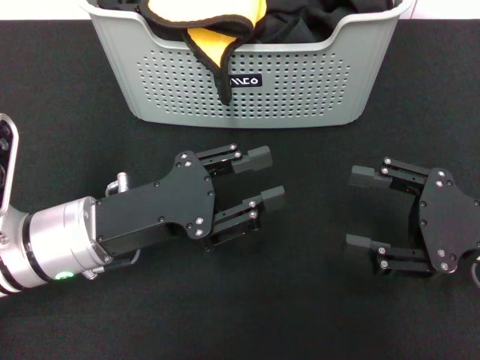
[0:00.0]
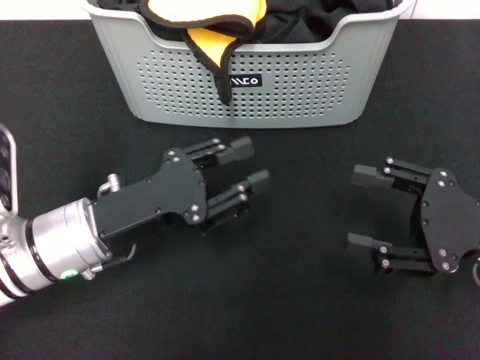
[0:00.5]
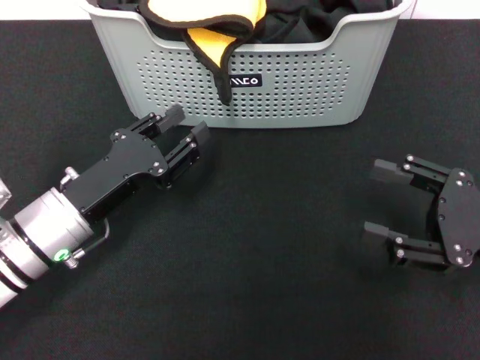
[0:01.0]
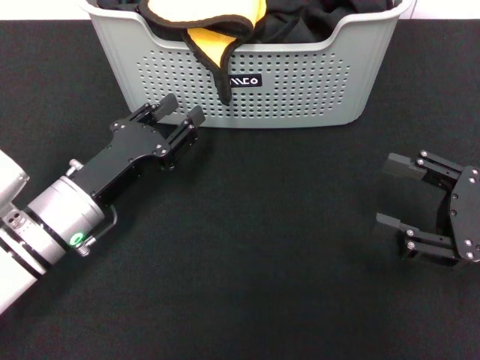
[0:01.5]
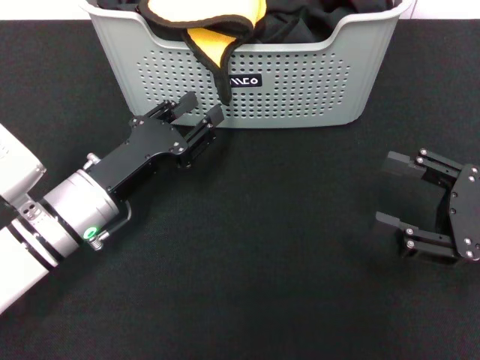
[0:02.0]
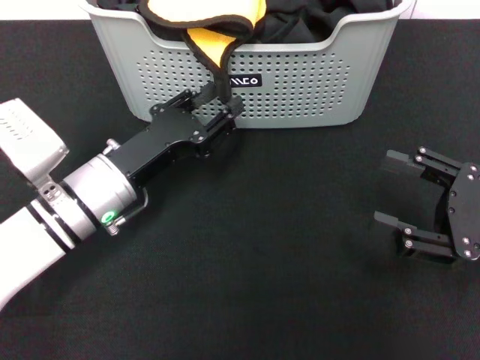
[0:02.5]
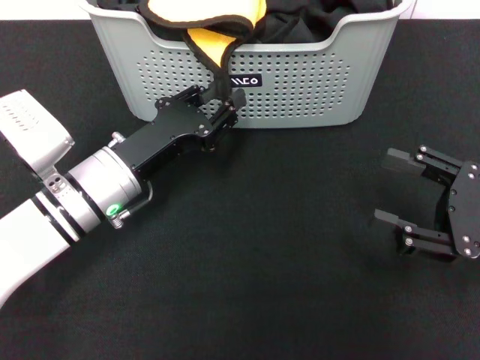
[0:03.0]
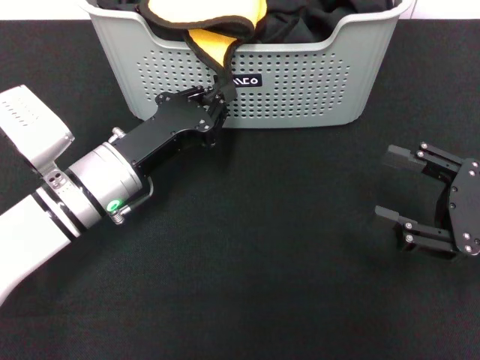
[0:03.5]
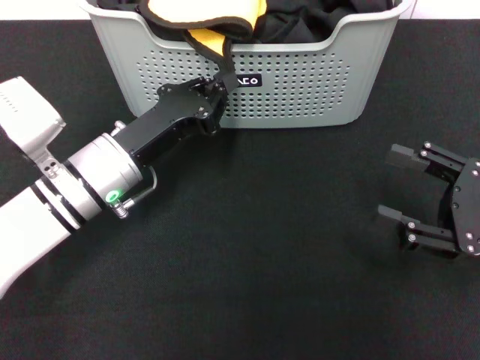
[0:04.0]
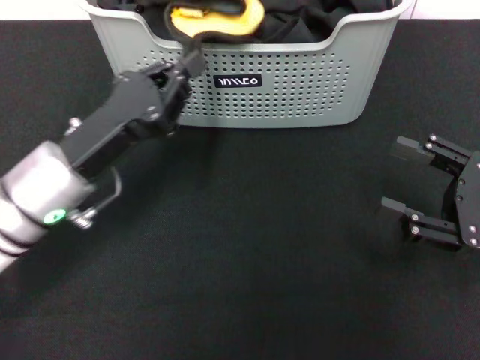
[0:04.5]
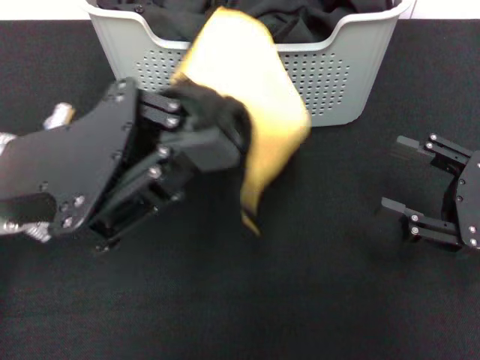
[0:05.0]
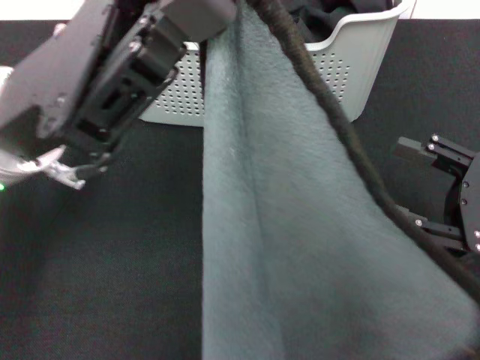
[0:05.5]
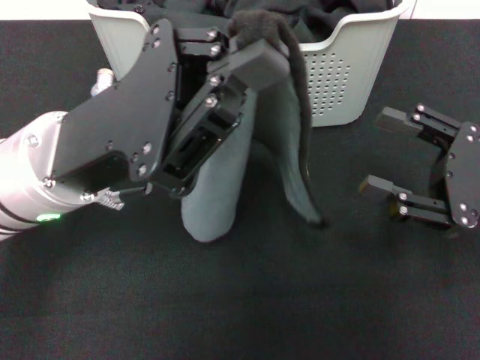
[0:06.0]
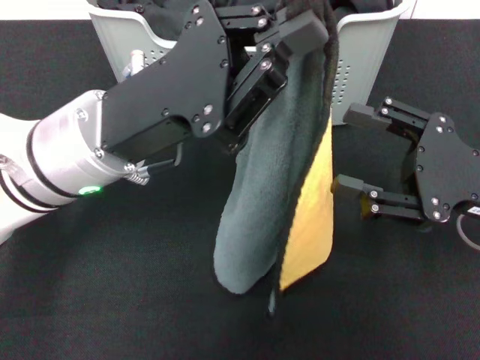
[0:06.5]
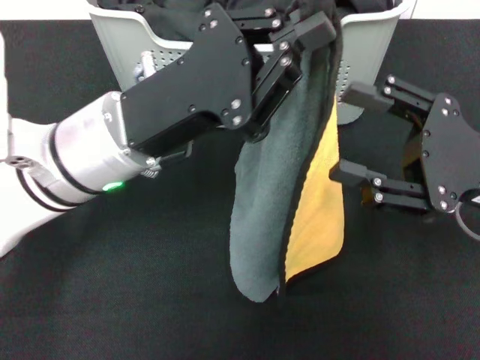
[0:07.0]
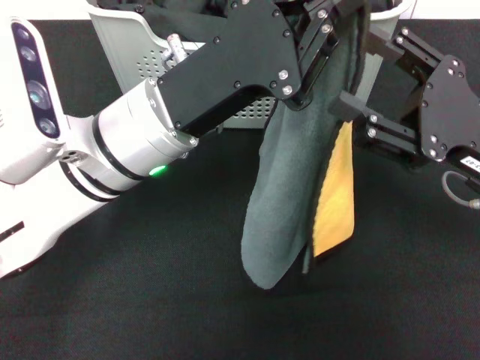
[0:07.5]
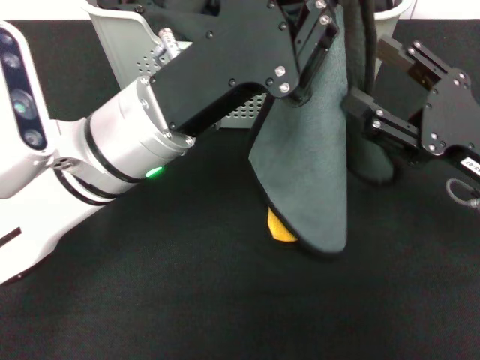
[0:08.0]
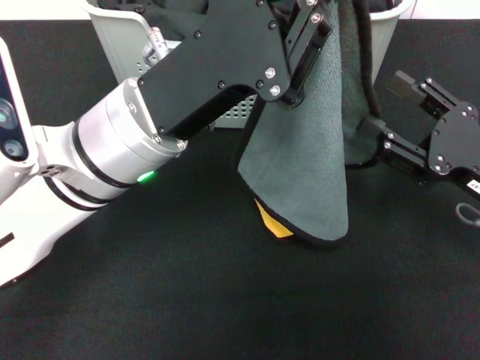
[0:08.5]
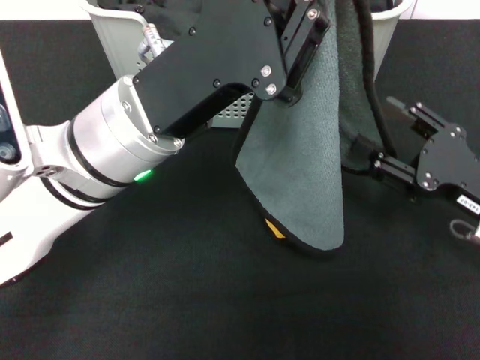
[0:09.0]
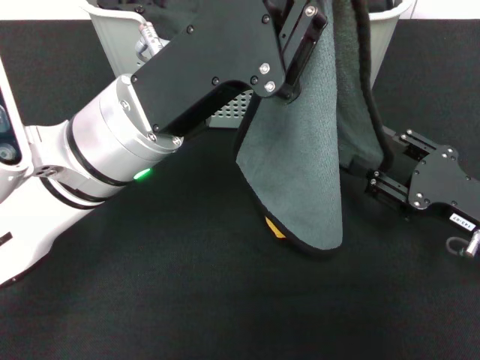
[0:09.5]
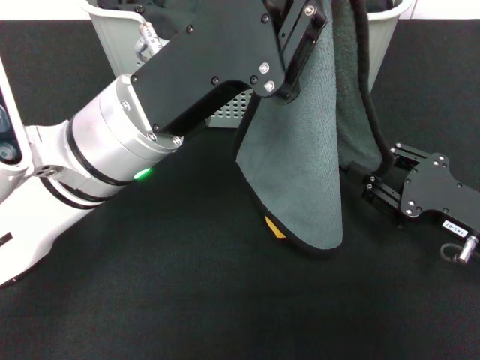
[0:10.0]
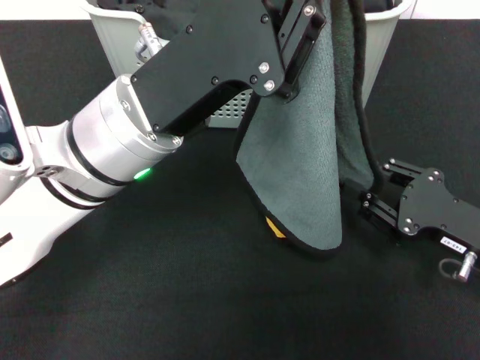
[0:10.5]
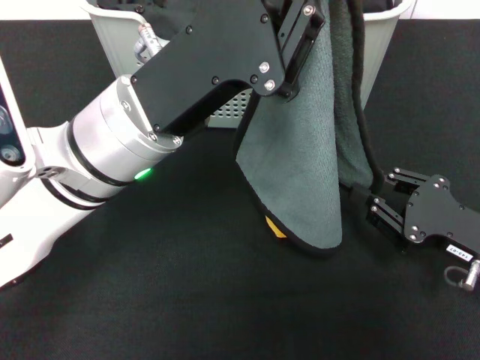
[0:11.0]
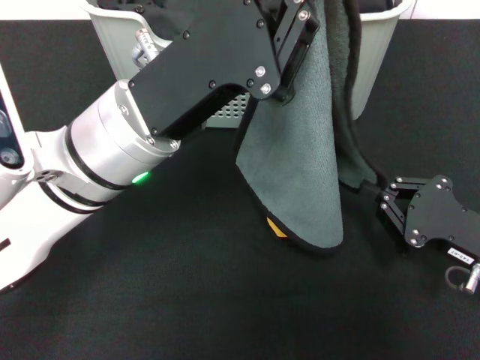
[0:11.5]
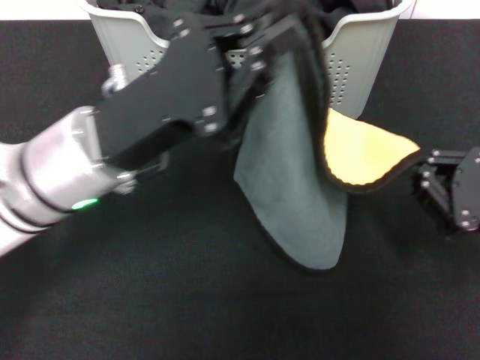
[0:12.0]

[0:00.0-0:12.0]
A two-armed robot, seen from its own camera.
Task of the whole recording: pick up the towel from the storage box and lay it flat on the black tablecloth.
Step, 0:00.0 to 0:04.0: Pick up a towel with the left gripper.
Step, 0:04.5 to 0:11.5: Spread the towel flat with the left gripper.
0:00.0 to 0:02.0: The left gripper moves some 5 cm.
0:02.0 to 0:04.0: The left gripper closes.
0:04.0 to 0:06.0: The left gripper moves upward, approximately 10 cm.
0:06.0 to 0:08.0: The left gripper ends up roughly 5 cm from where it was.
0:08.0 to 0:10.0: The right gripper is displaced downward by approximately 5 cm.
0:10.0 to 0:12.0: The right gripper closes up.

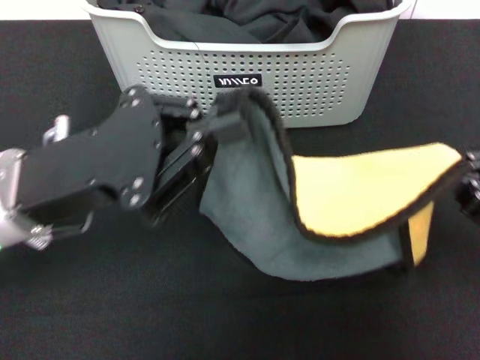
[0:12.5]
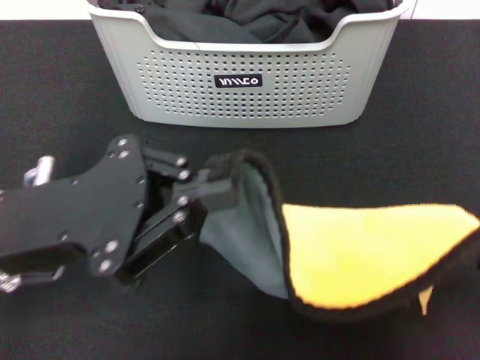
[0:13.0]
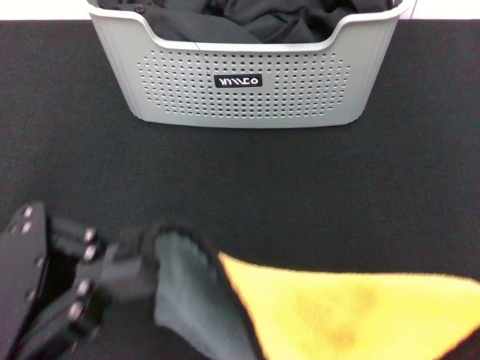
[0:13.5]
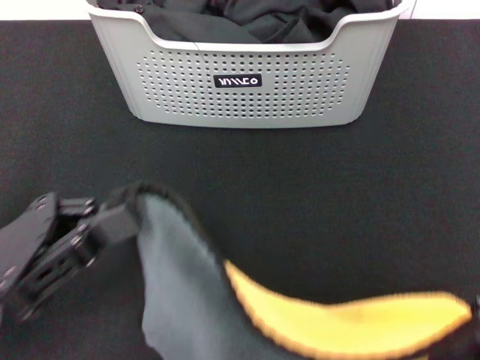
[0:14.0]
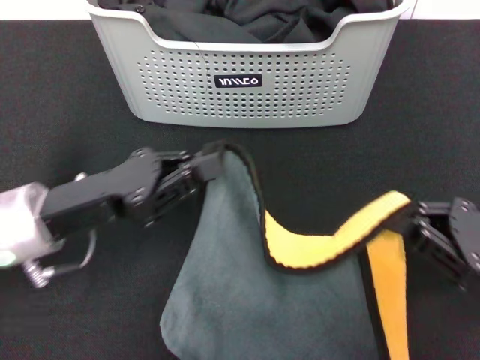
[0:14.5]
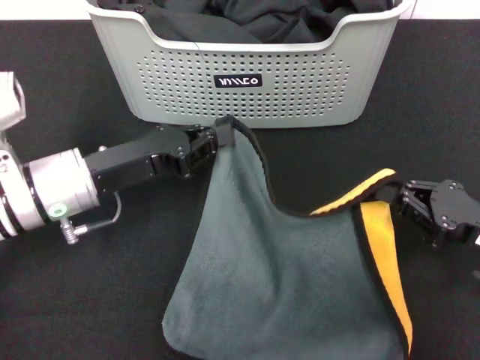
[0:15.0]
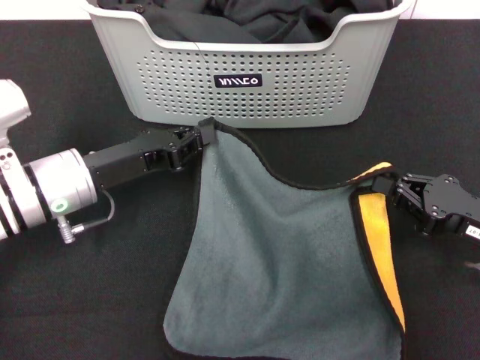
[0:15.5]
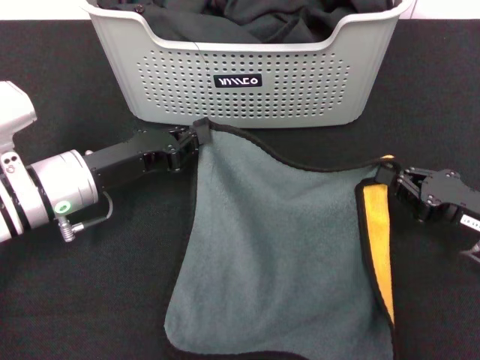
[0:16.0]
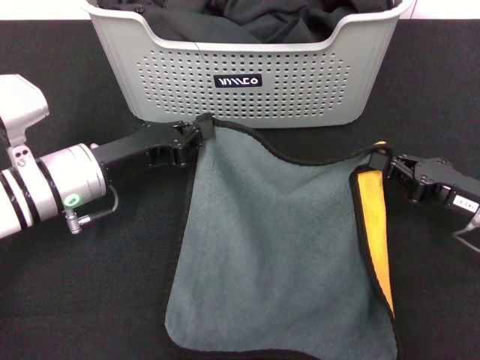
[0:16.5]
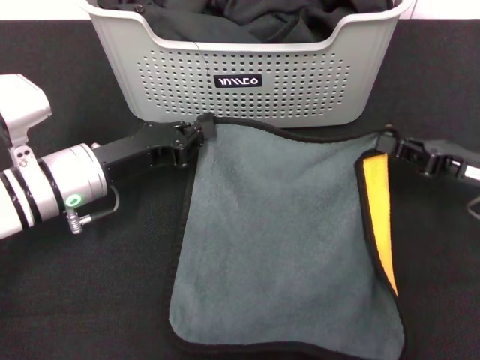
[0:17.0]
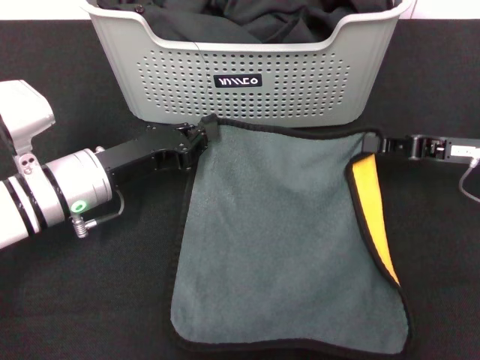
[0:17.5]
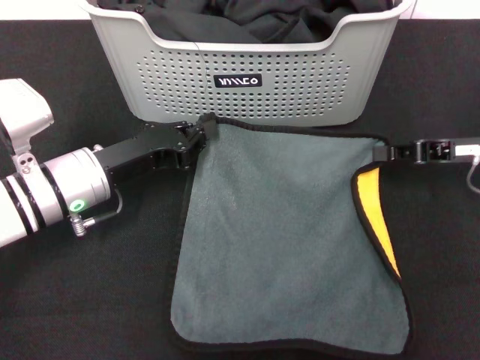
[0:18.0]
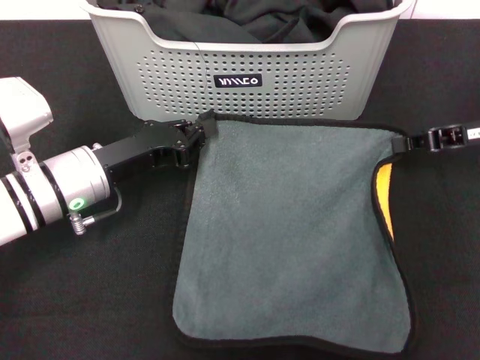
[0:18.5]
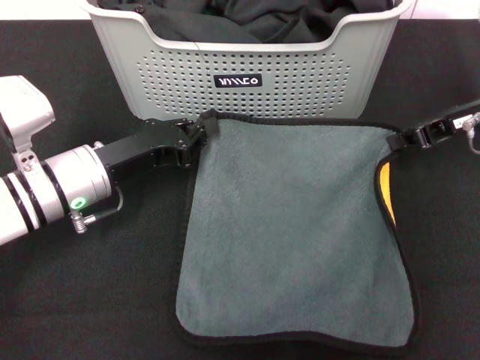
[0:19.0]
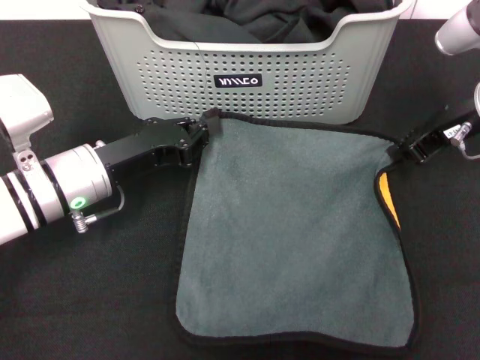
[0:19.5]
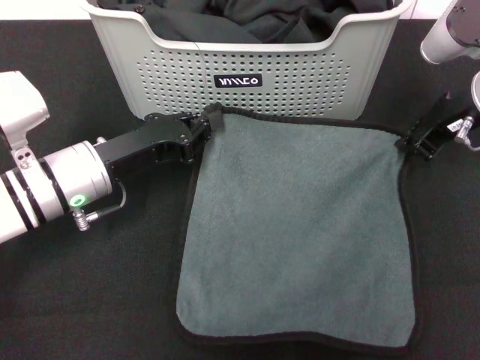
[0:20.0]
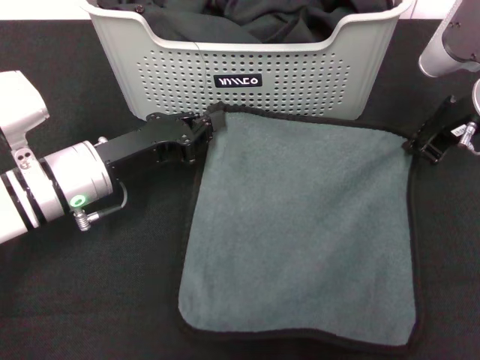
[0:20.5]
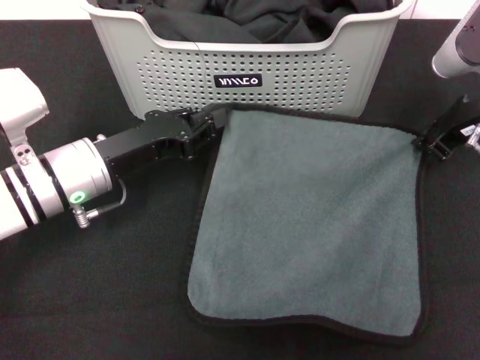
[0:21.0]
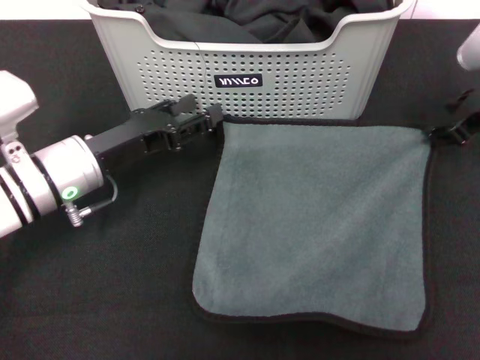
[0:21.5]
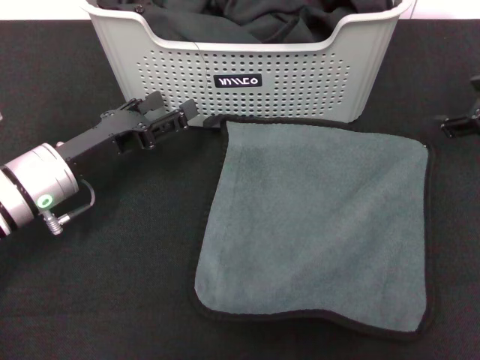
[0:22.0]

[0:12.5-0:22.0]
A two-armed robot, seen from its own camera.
Task of the whole recording: pick up the towel from the storage box and lay it flat on the black tablecloth.
Step, 0:12.5 to 0:21.0: Spread the towel flat with the right gripper.
0:12.5 to 0:14.5: Both grippers move downward, some 5 cm. The left gripper reaches roughly 10 cm backward, then returns, while the right gripper travels backward and back again, some 10 cm each way.
0:14.5 to 0:16.5: The two grippers go approximately 5 cm forward.
0:16.5 to 0:18.0: The right gripper moves forward and upward, approximately 10 cm.
0:18.0 to 0:20.0: The right gripper moves upward and to the left, approximately 10 cm.
0:20.0 to 0:22.0: The right gripper travels to the right by some 5 cm, and opens up. The left gripper opens.

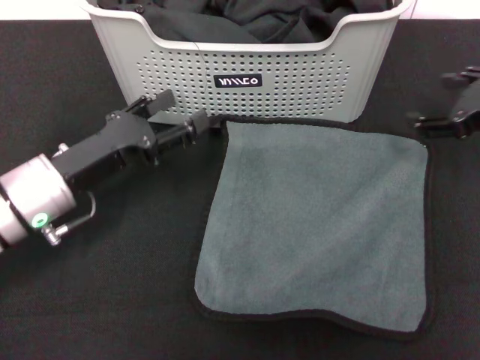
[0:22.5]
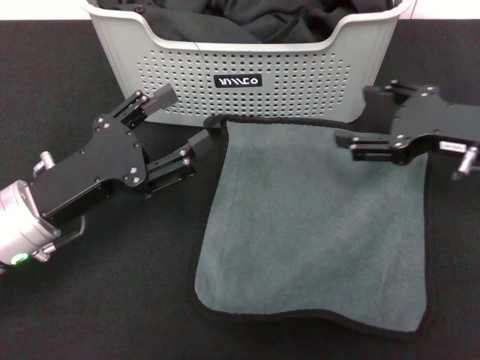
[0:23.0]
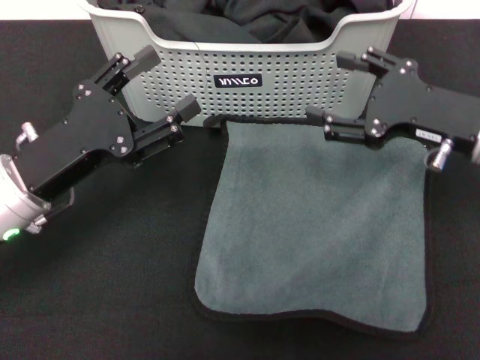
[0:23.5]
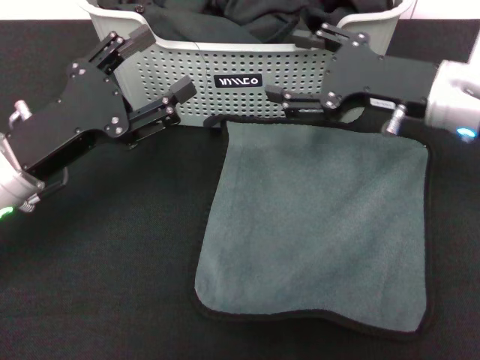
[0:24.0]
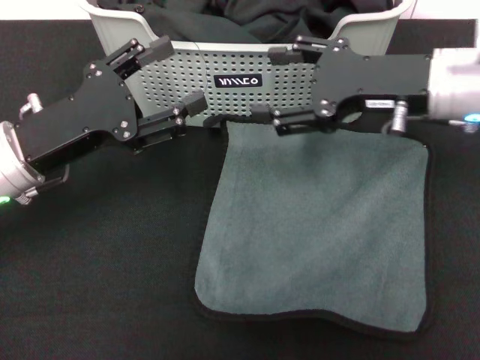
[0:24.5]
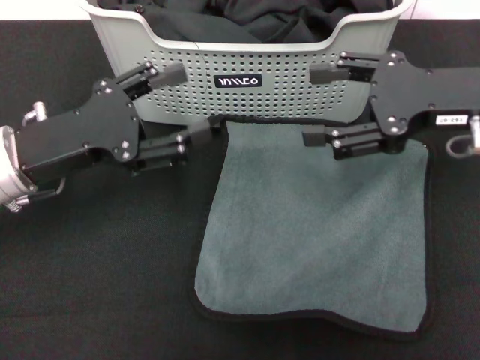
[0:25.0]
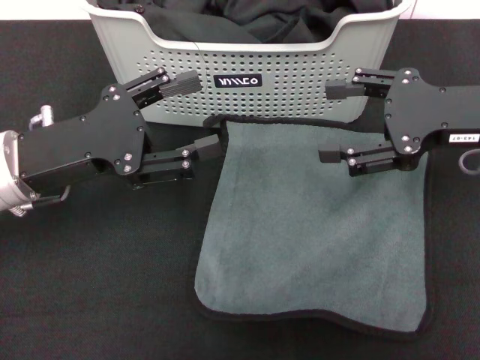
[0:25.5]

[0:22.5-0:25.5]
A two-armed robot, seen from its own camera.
Task of the whole recording: pick up the towel from the storage box and lay it flat on the black tablecloth.
0:22.5 to 0:24.0: The right gripper shifts roughly 10 cm to the left.
0:24.0 to 0:25.5: The right gripper shifts approximately 5 cm to the right.
